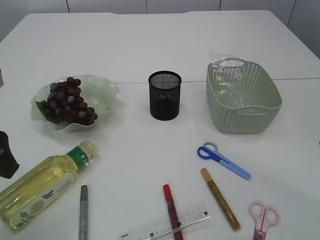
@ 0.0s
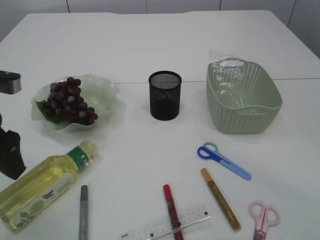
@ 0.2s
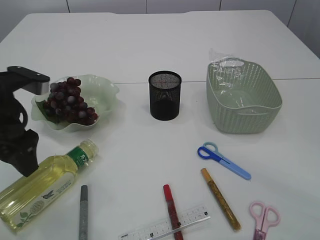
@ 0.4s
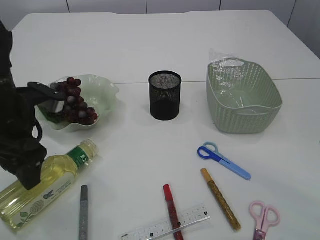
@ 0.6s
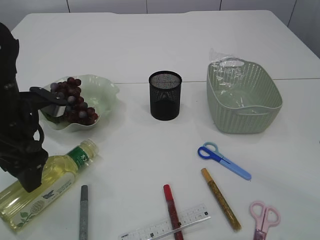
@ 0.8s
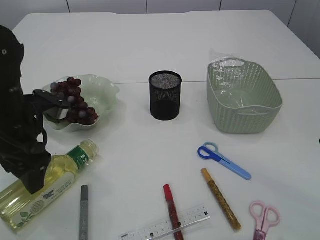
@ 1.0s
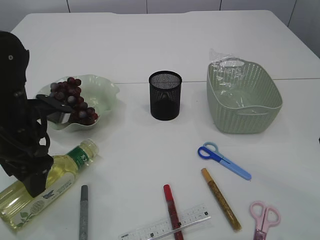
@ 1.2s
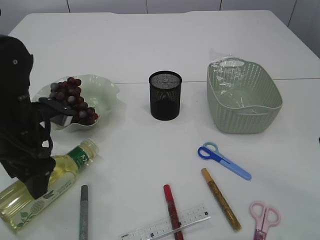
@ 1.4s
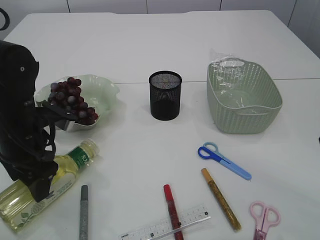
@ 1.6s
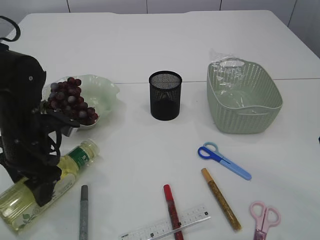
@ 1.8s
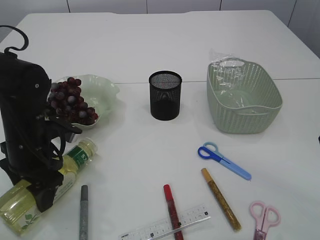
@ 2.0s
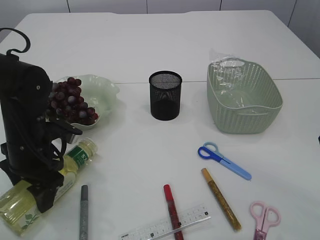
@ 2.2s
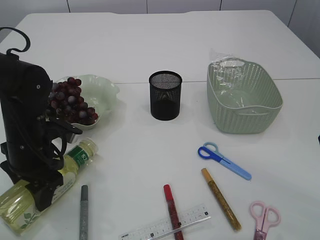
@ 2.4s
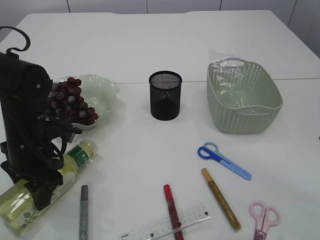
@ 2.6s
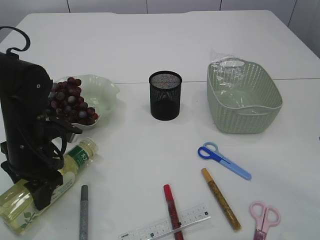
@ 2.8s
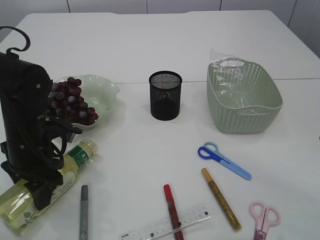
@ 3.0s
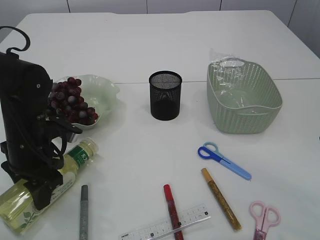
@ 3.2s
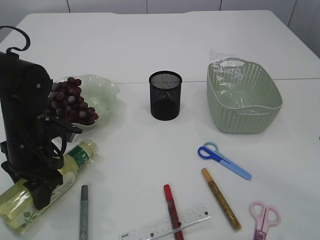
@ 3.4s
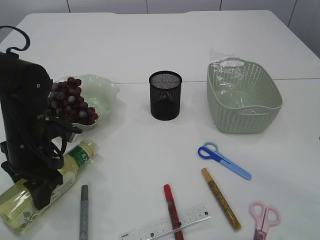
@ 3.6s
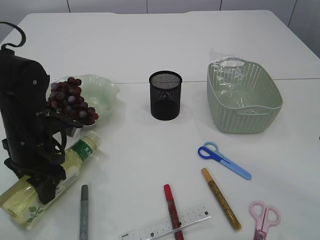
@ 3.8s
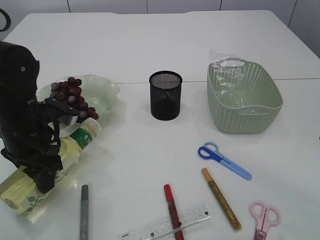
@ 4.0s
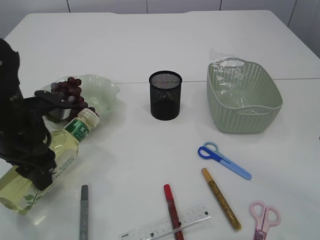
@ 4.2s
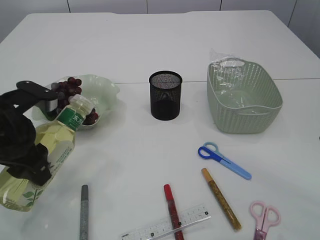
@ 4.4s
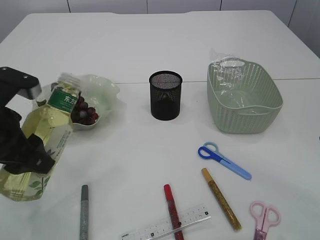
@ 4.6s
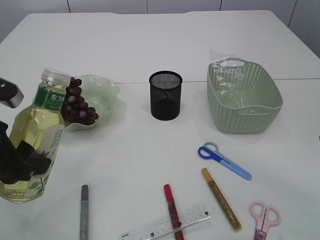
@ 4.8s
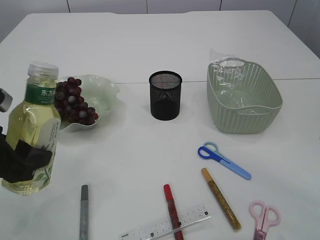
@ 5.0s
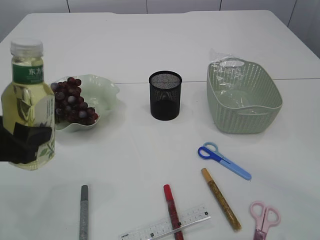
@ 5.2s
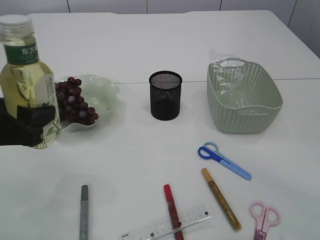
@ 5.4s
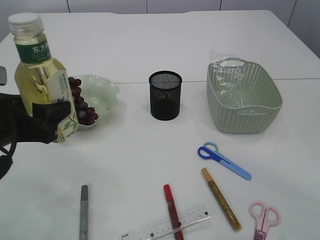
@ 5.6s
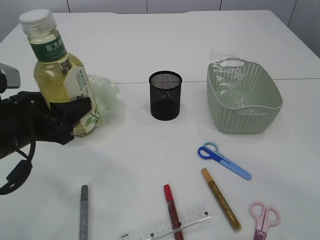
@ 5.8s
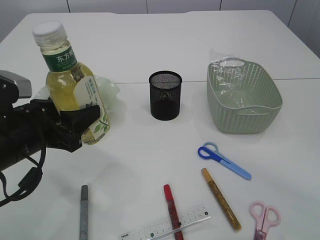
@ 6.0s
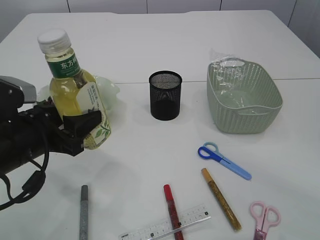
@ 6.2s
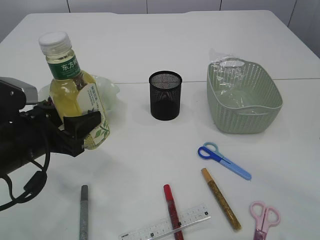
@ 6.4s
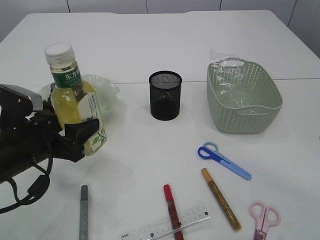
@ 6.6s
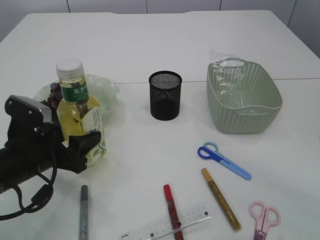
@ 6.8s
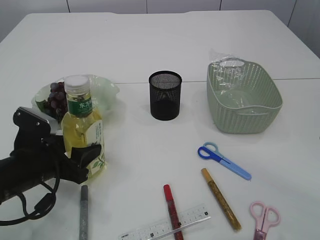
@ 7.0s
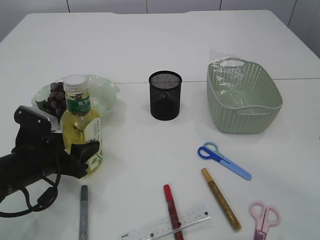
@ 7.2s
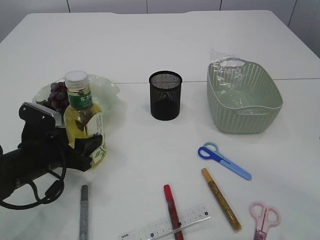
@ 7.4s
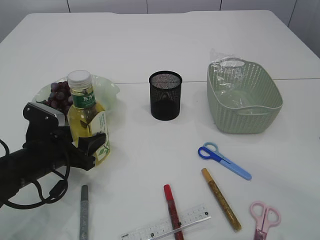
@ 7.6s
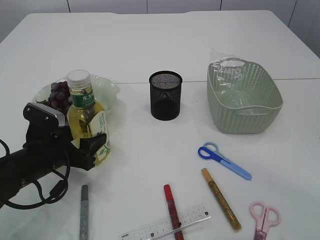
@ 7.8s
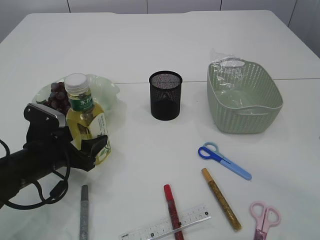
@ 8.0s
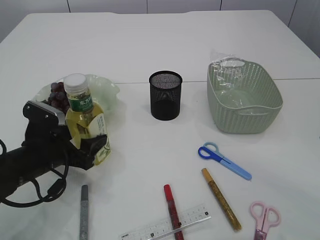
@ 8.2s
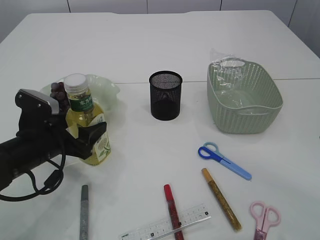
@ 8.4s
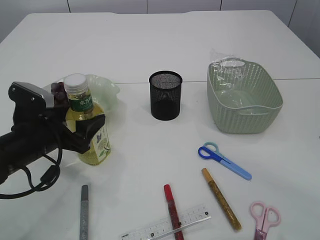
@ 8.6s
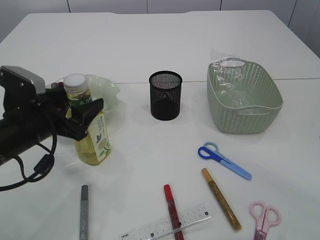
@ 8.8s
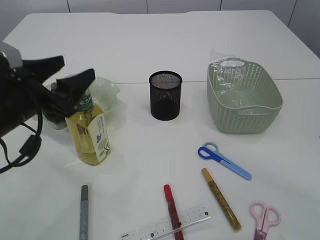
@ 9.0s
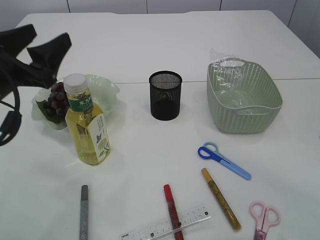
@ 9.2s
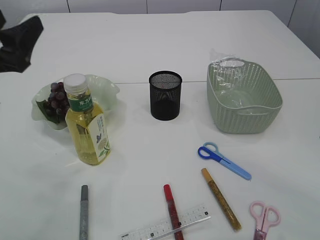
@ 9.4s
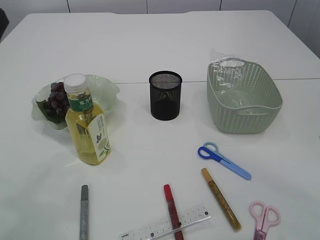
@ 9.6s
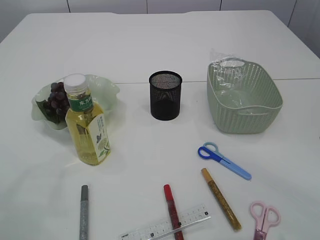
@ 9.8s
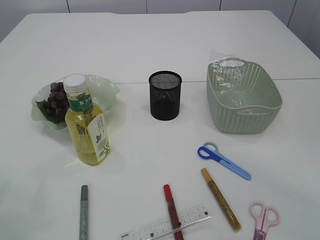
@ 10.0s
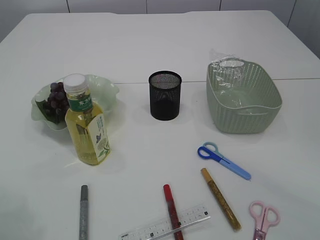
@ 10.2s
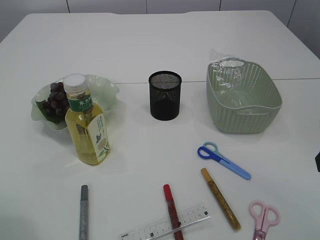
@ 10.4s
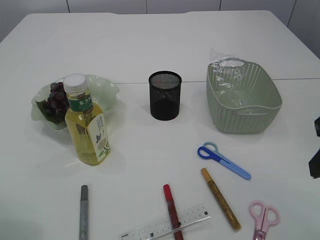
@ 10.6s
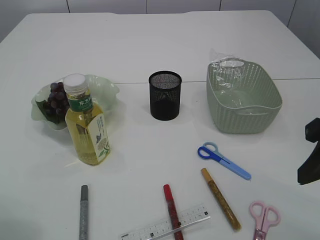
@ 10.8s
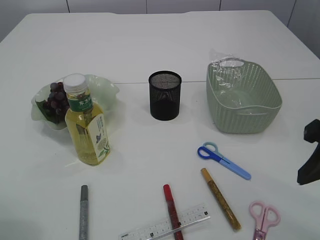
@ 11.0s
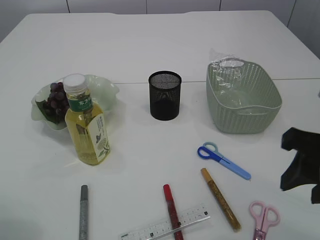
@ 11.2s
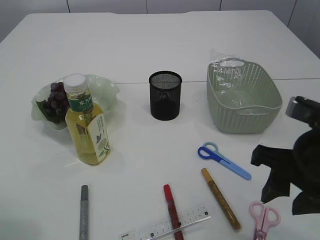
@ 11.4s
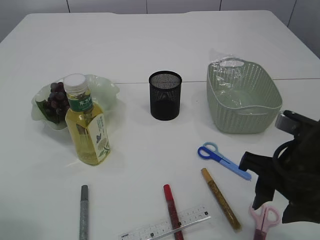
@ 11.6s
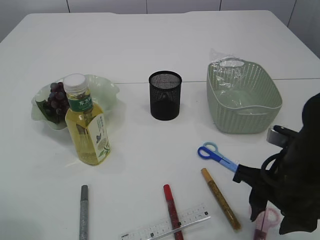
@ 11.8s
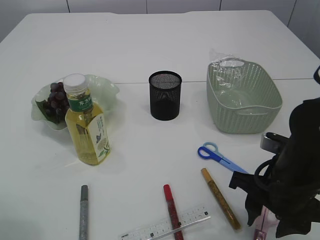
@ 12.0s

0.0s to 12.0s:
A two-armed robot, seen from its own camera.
Step, 0.0s to 4.4s: Pick up the bottle with the left arm.
Step, 4.6s to 9.0s: Place the bottle.
0.0s to 1.6s: The left gripper is displaced downward and forward by about 10 cm.
1.6s to 3.0s: The grippers make only small movements.
3.0s to 4.4s: The left gripper is displaced upward by roughly 10 cm.
6.0s to 7.6s: The left gripper shifts roughly 10 cm downward.
7.6s to 9.0s: The left gripper shifts approximately 10 cm upward.
9.0s to 10.4s: The left gripper goes approximately 15 cm to the left, backward and upward.
10.4s to 12.0s: The right gripper heads downward and to the left, covering about 15 cm.

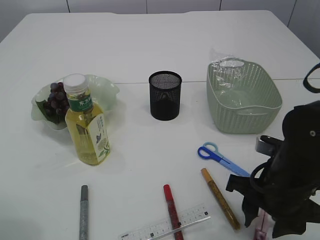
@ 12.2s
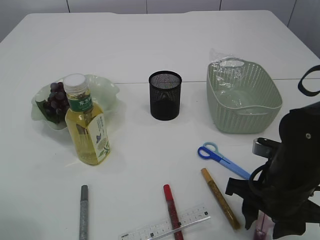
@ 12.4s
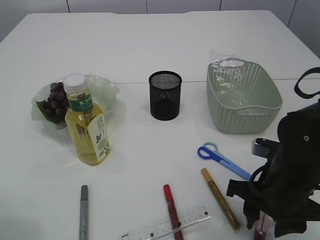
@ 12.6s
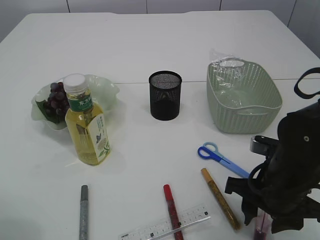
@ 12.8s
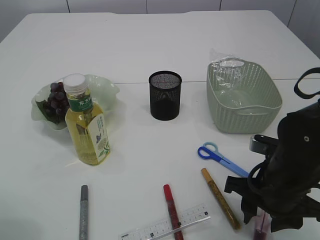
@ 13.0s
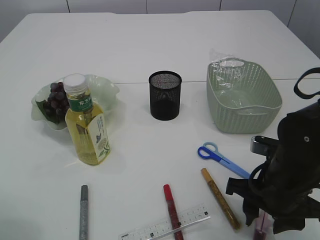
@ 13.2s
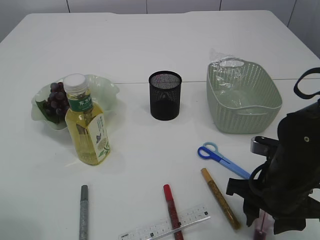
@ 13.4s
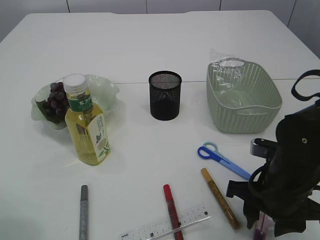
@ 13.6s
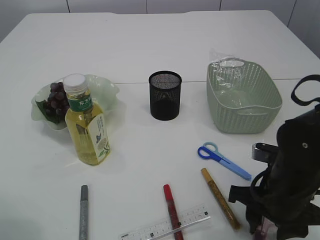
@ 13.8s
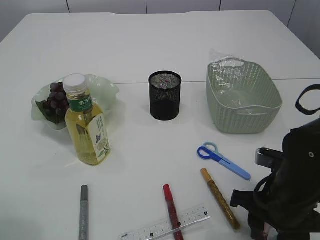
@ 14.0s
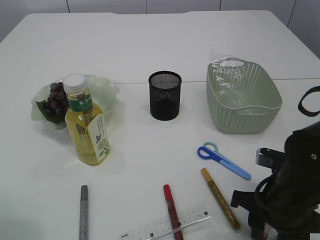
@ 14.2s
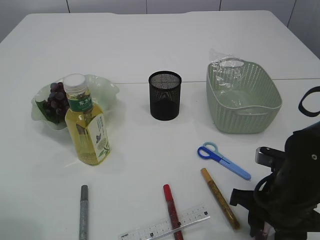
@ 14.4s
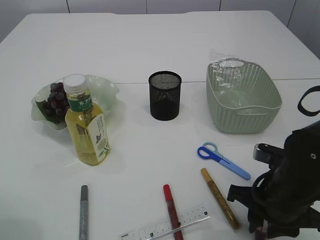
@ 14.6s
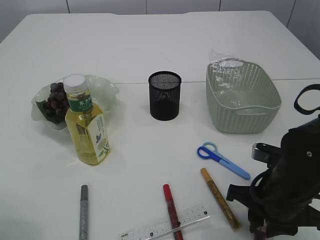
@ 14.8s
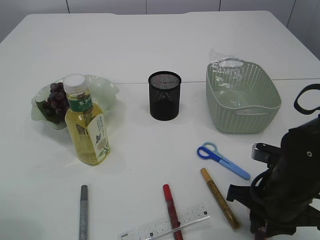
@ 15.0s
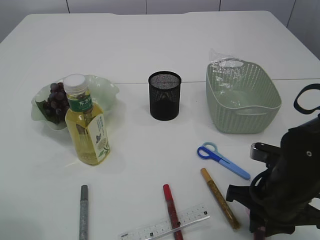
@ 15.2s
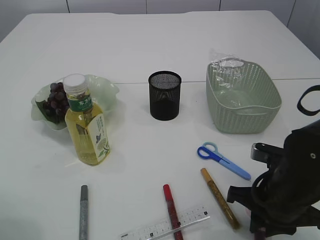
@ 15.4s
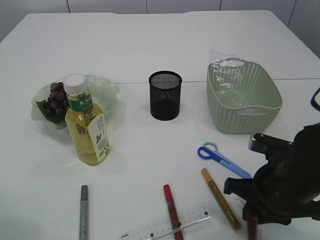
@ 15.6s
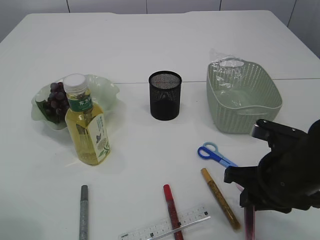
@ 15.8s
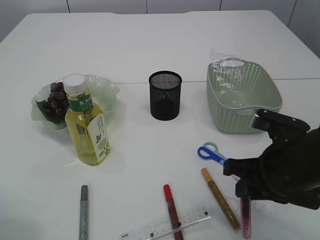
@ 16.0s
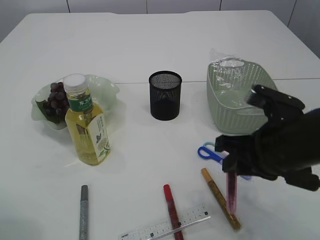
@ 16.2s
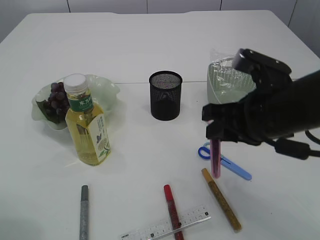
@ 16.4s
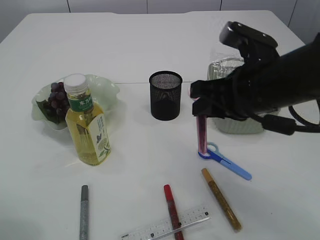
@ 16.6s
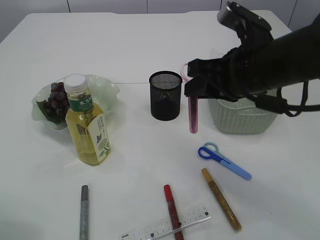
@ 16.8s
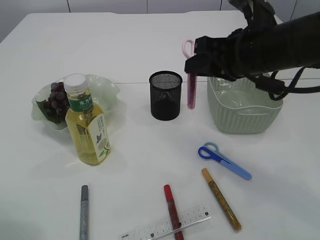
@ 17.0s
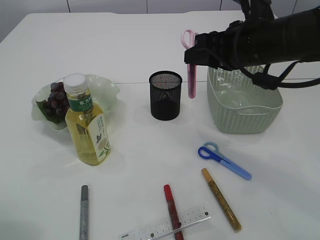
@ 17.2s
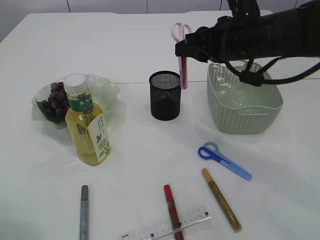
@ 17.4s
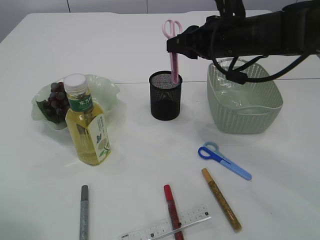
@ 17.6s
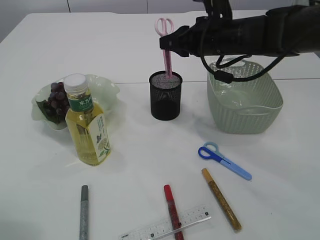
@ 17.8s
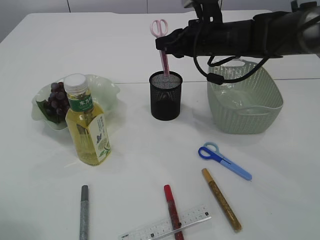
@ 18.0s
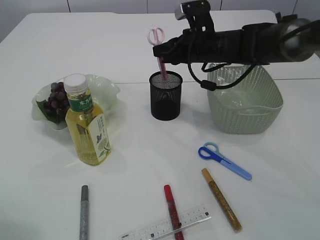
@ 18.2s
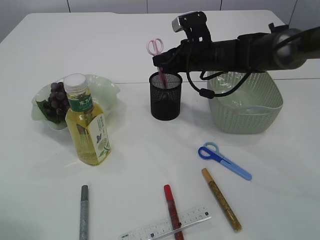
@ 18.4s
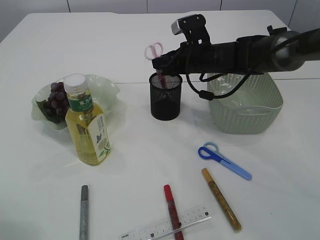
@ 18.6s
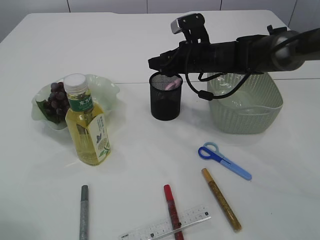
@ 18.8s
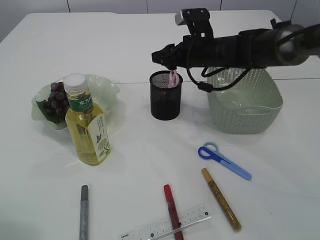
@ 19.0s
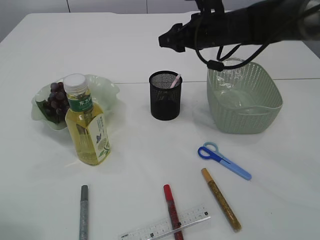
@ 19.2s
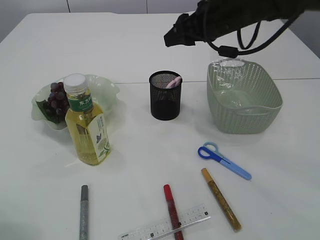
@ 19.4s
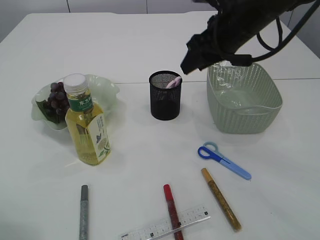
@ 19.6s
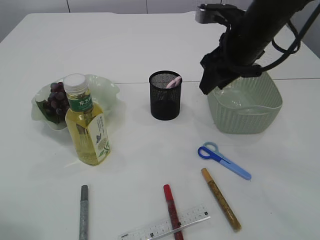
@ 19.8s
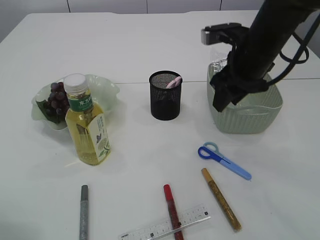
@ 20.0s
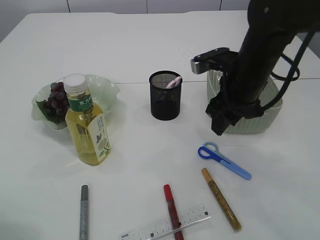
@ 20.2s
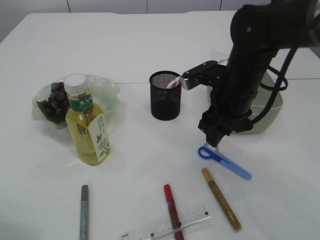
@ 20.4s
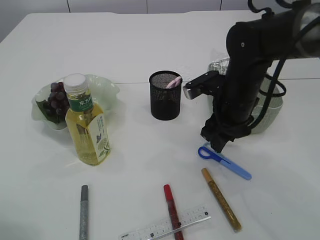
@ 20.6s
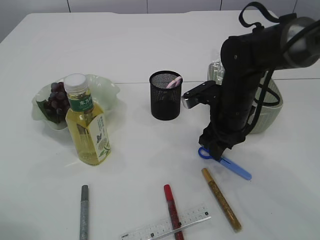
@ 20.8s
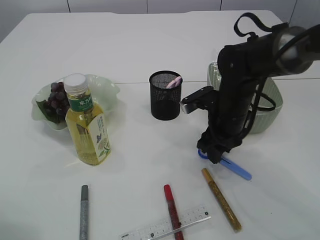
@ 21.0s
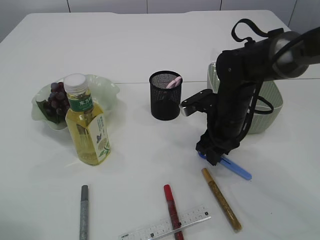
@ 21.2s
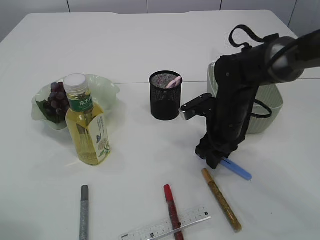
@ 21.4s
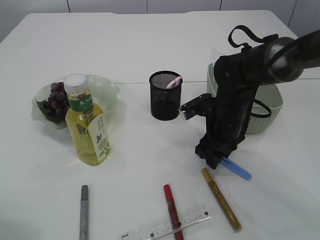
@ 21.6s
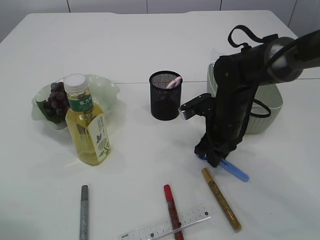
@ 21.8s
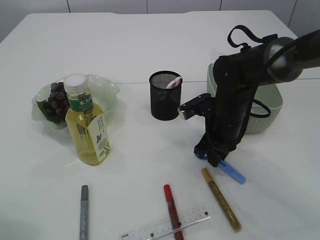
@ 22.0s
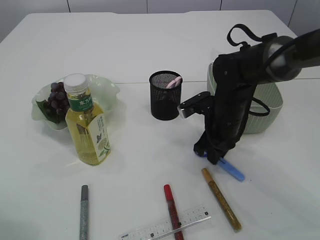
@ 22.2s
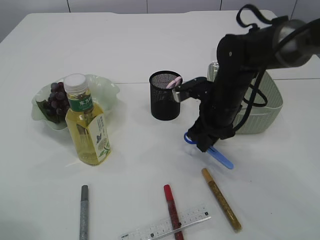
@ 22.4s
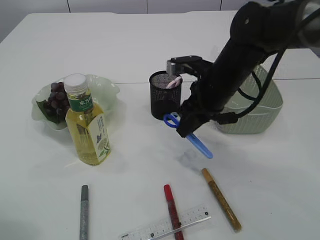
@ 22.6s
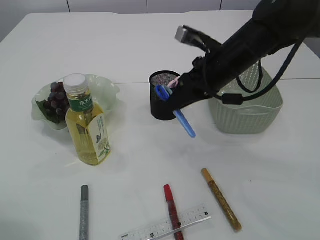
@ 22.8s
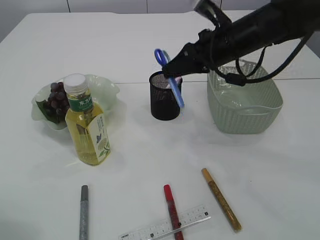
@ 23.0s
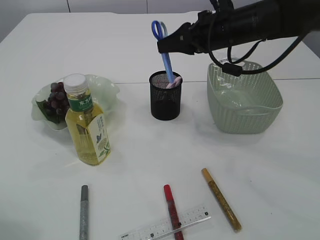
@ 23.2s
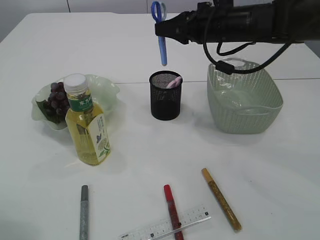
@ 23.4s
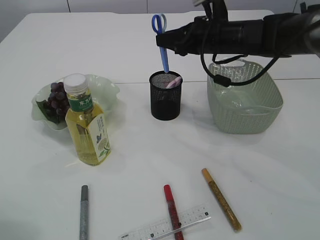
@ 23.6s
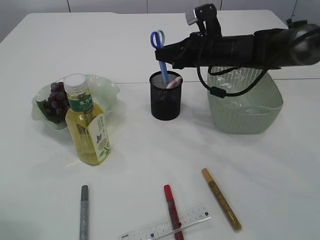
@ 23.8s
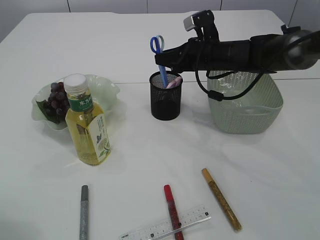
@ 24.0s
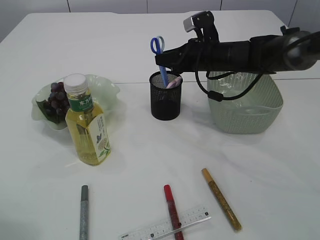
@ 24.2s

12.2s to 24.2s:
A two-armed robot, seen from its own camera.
Step, 12.2s to 16.2s: pick up the pink scissors.
Step, 16.4s to 19.4s: Place the pink scissors into the pen holder.
Step, 19.6s to 22.6s: pick up the blue scissors.
12.2s to 13.8s: The grippers move only a little.
13.8s to 15.2s: The right gripper closes.
15.2s to 16.6s: The right gripper moves upward, some 15 cm.
16.6s to 18.2s: The right gripper moves forward, about 20 cm.
18.2s to 19.8s: The right gripper moves backward and upward, about 10 cm, and opens.
19.8s to 21.2s: The right gripper moves downward, approximately 15 cm.
21.2s to 22.6s: The right gripper shifts approximately 5 cm upward, and closes its fingers.
22.6s to 24.2s: The right gripper moves forward, roughly 10 cm.
